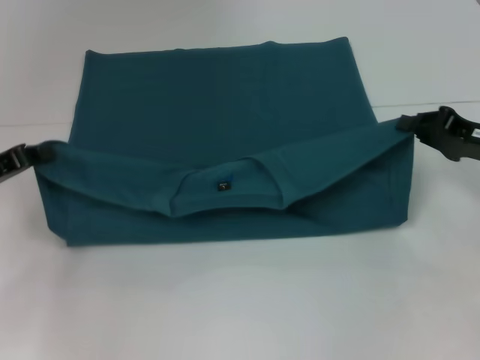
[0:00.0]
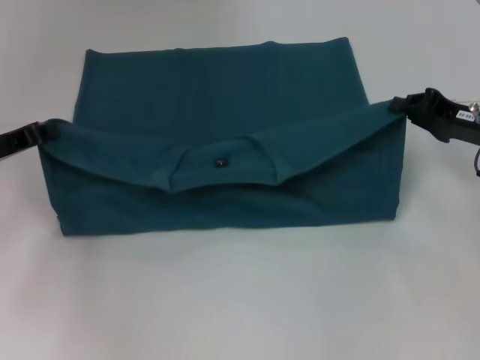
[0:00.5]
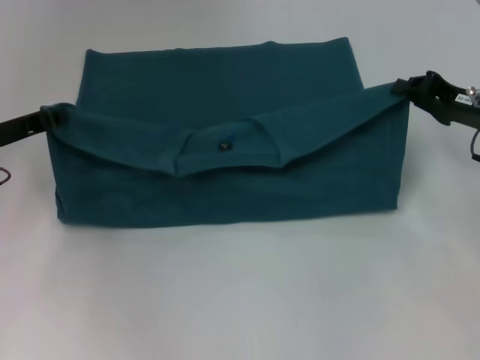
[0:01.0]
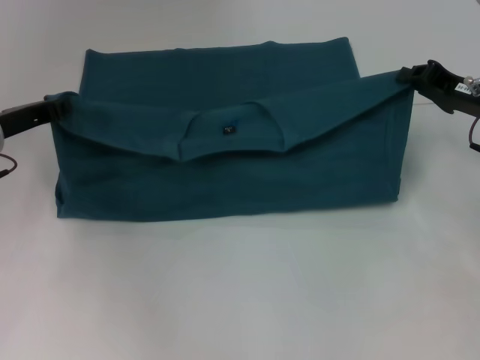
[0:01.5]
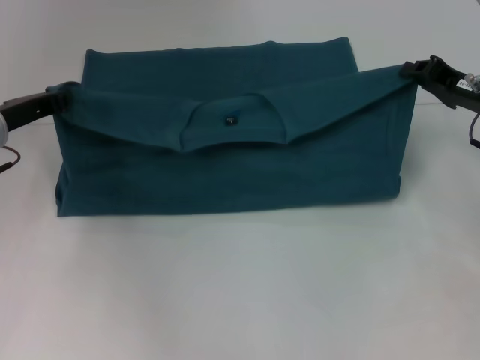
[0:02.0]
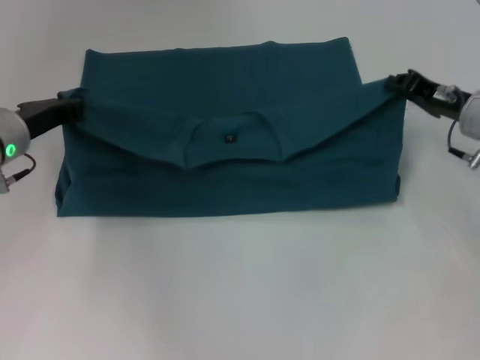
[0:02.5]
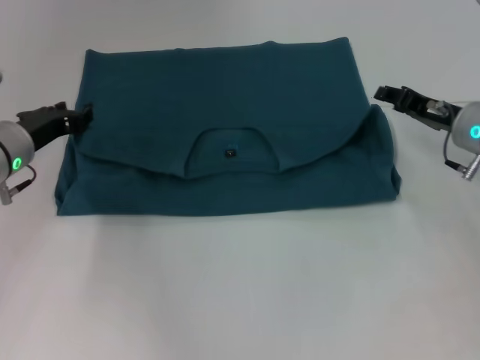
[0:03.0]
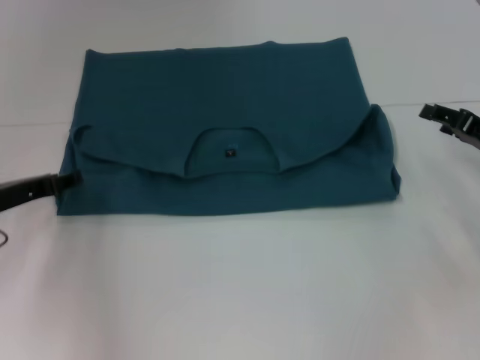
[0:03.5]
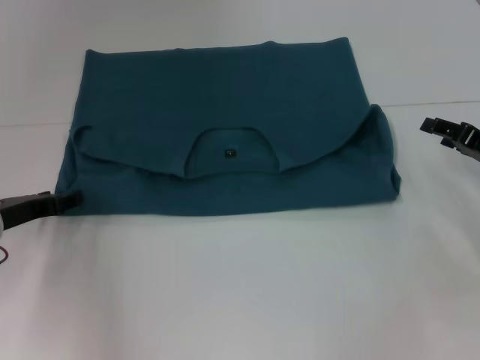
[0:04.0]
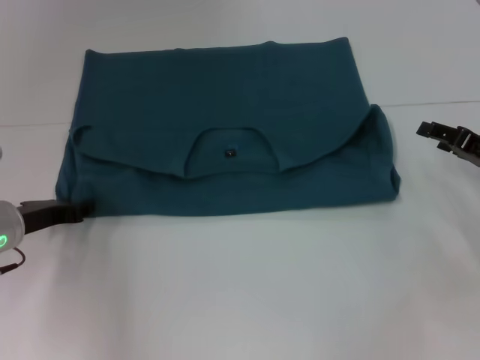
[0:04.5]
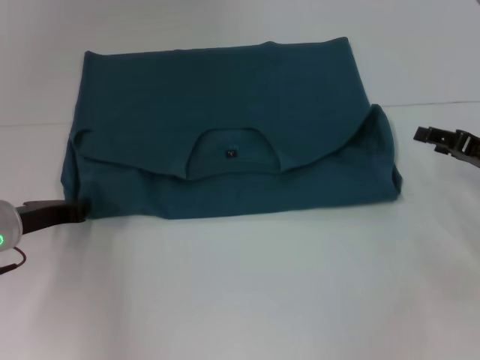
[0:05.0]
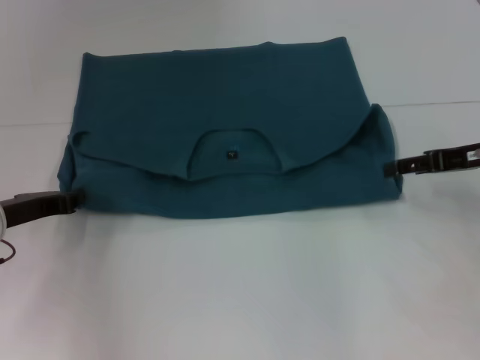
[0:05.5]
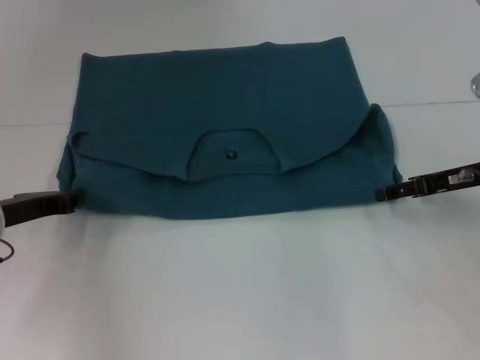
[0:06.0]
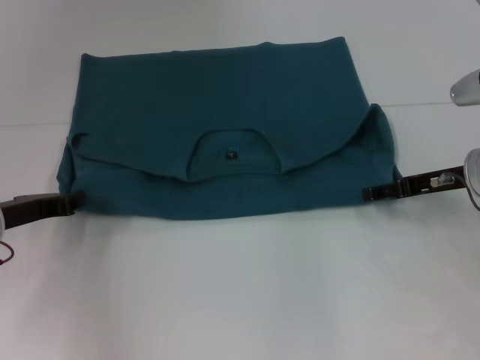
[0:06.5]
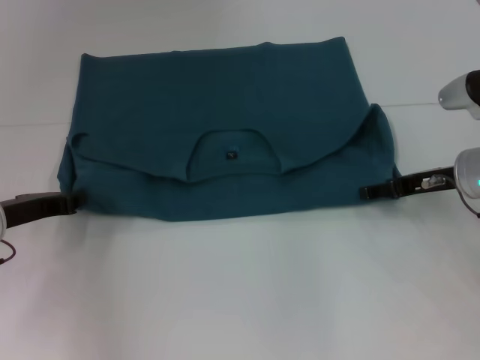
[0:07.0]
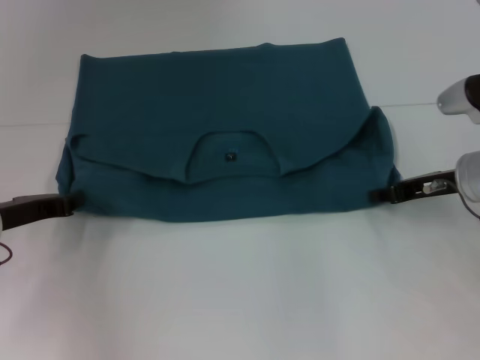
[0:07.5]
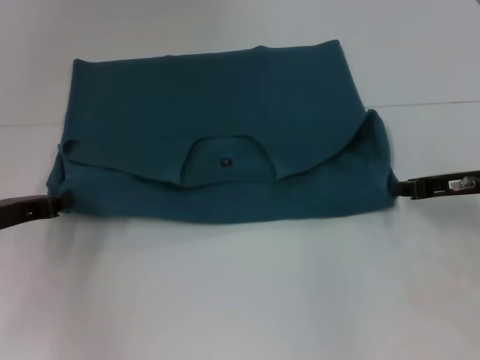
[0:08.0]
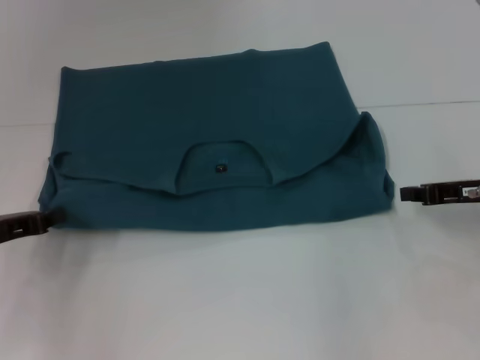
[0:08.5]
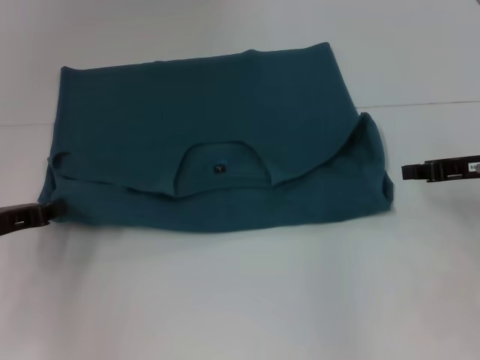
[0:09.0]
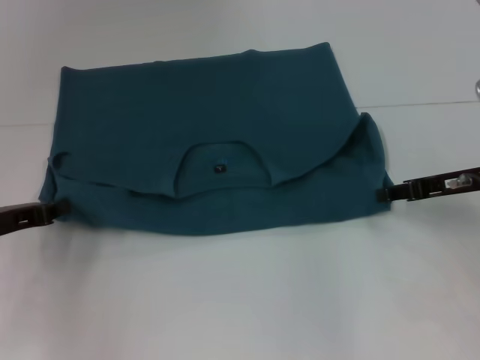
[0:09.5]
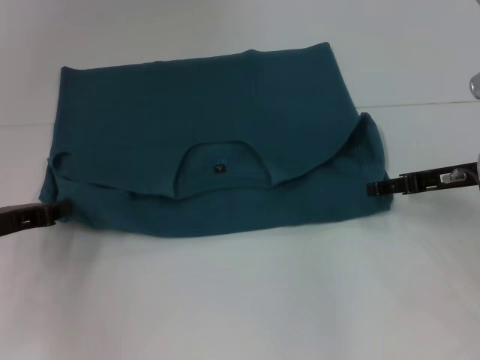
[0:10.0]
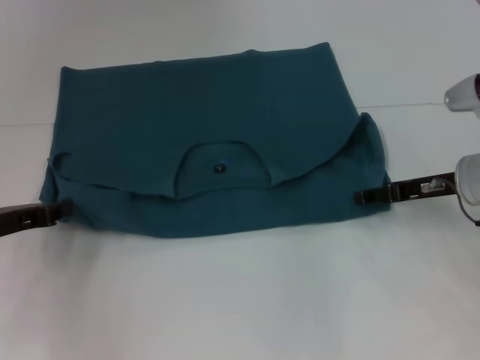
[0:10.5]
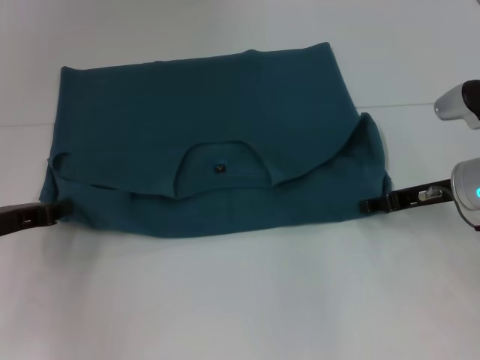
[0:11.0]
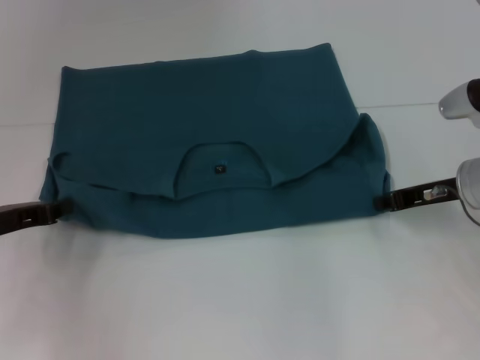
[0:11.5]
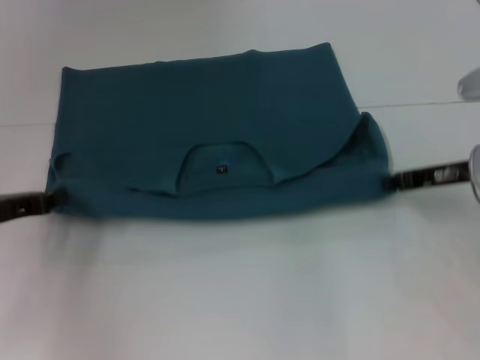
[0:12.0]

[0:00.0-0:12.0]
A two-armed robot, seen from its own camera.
Step, 0:00.0 to 0:03.5: Fold the clothes to the left.
Step, 0:00.0 to 0:03.5: Fold the clothes to the right.
0:00.0 to 0:02.0: The right gripper moves some 5 cm; the left gripper heads forward and to the right, covering roughly 10 cm.
0:02.0 to 0:04.0: The left gripper goes roughly 10 cm downward and backward, and opens its fingers, while the right gripper moves some 5 cm, and opens.
0:04.0 to 0:06.0: The right gripper ends up roughly 5 cm from where it was. Meanwhile the left gripper closes up.
0:06.0 to 0:08.0: The right gripper closes its fingers.
0:08.0 to 0:10.0: The right gripper opens its fingers.
0:10.0 to 0:12.0: The right gripper closes.

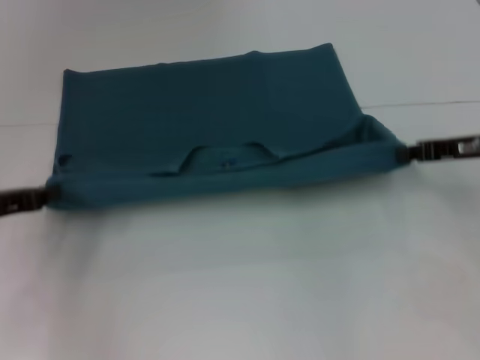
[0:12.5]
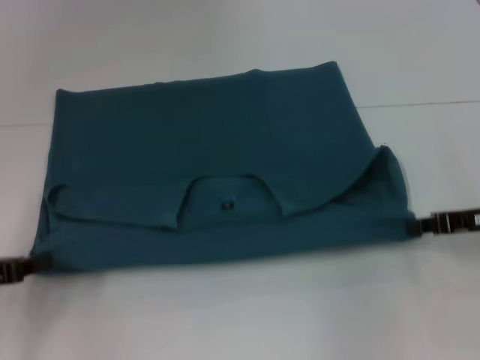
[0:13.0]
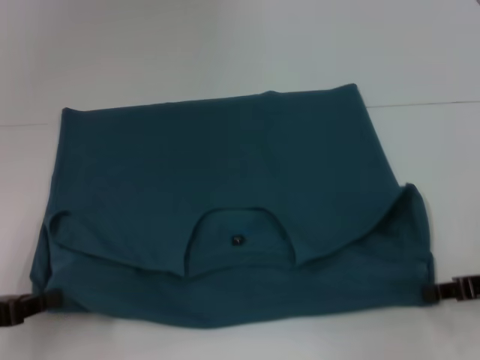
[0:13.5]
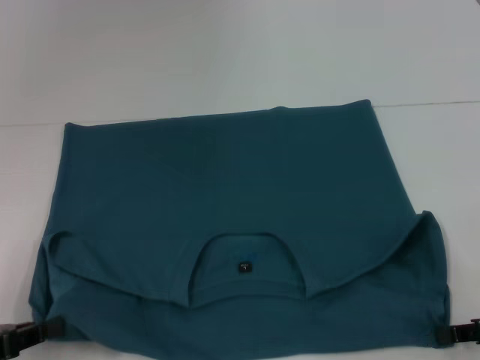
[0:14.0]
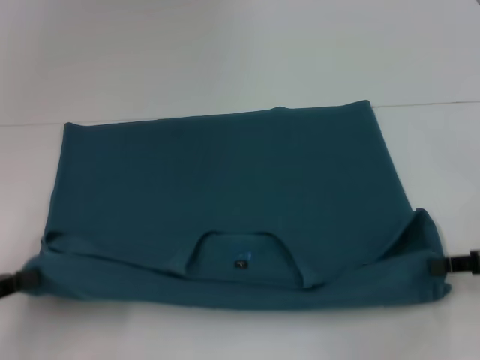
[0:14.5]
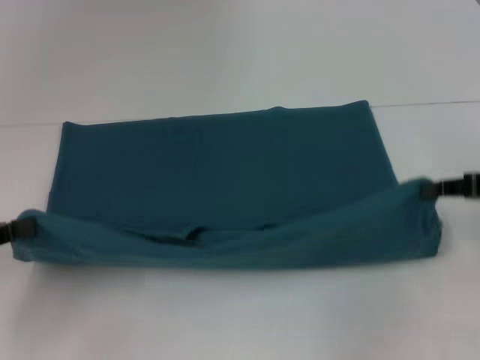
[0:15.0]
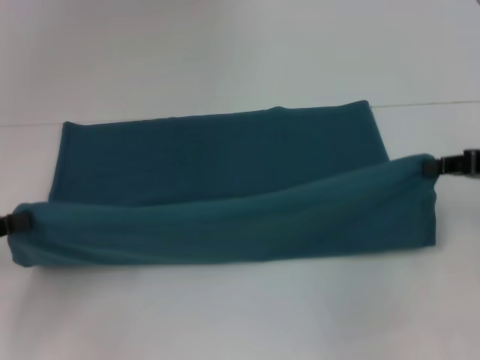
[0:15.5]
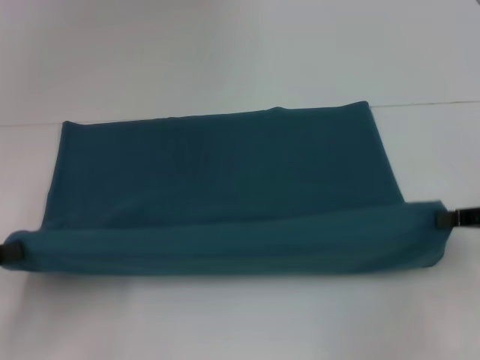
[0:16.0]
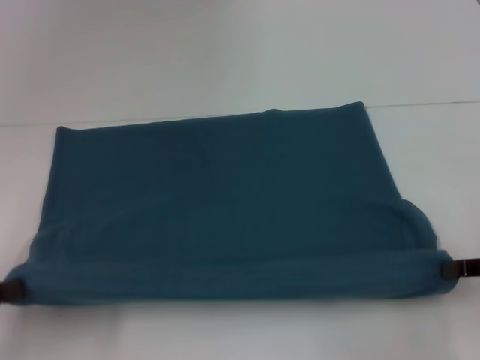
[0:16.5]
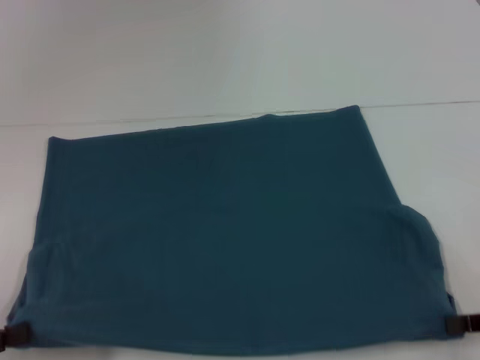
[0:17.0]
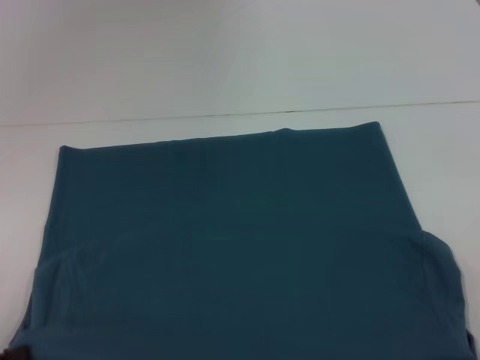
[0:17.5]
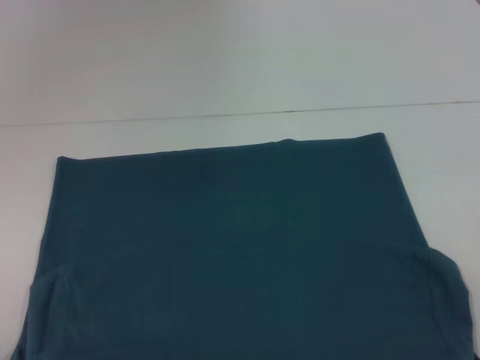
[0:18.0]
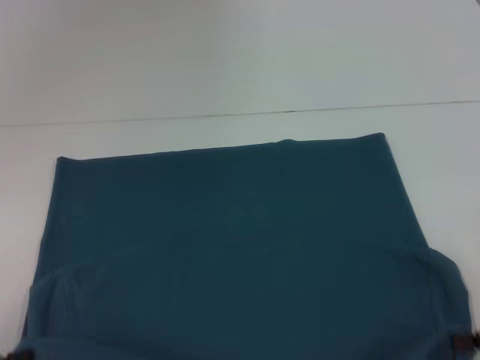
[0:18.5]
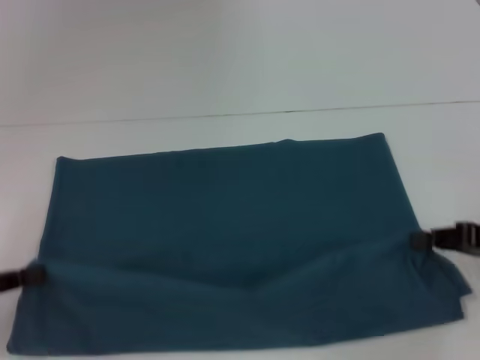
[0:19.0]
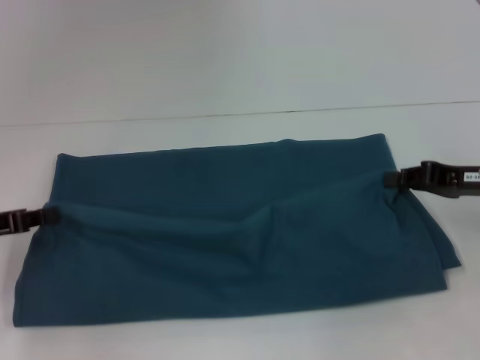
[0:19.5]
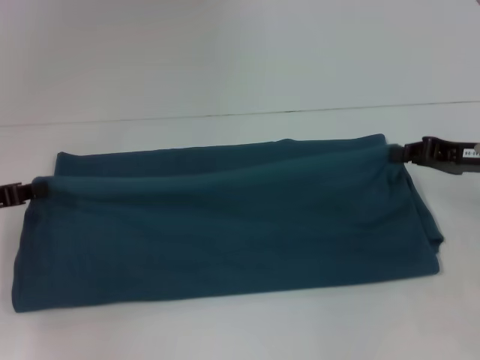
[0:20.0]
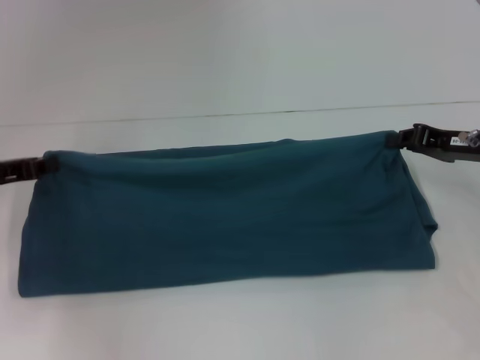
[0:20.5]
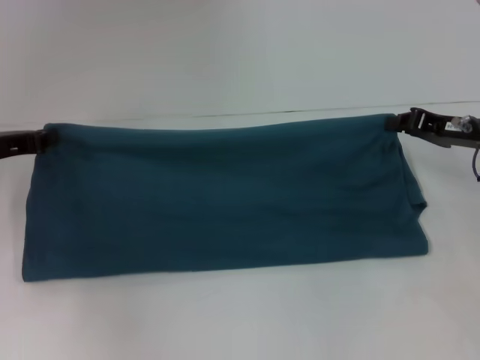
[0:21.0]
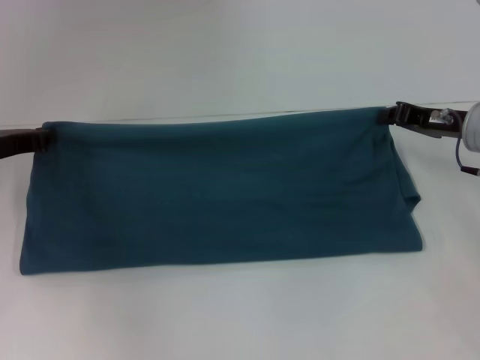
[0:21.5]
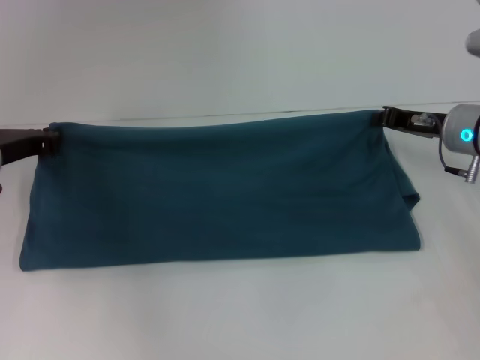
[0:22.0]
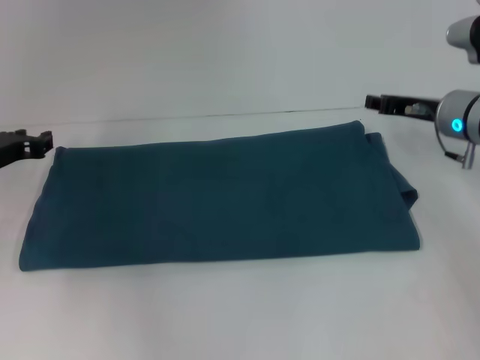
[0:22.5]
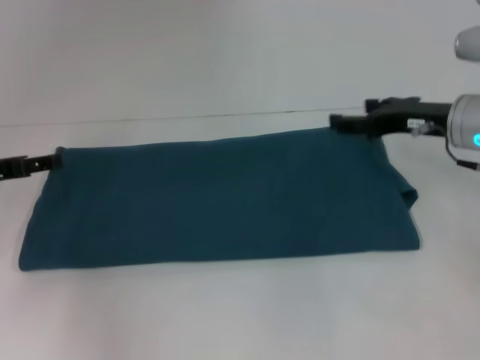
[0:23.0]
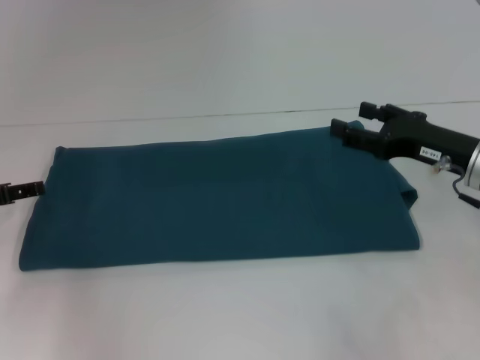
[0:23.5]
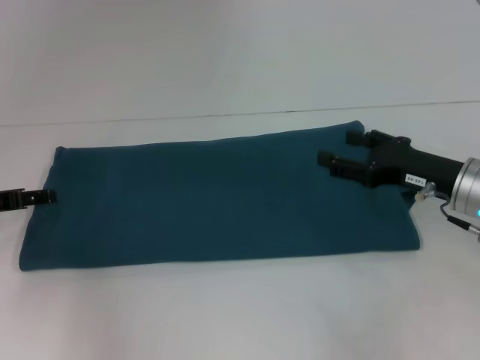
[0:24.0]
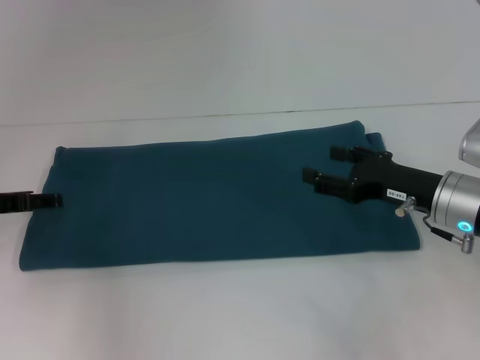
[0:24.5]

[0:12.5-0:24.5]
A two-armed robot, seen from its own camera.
Step, 0:14.5 to 0:22.5: Fold the clothes to the left.
Step, 0:14.5 to 0:22.5: Fold the clothes to the right.
0:12.5 to 0:14.5: The two grippers go some 10 cm backward.
0:16.5 to 0:18.5: The right gripper heads backward, covering approximately 5 cm.
0:18.5 to 0:20.5: The grippers both shift forward by about 20 cm.
0:20.5 to 0:22.5: The right gripper is displaced forward by roughly 5 cm.
0:22.5 to 0:24.5: The right gripper is displaced backward by about 10 cm, and opens. The left gripper opens up.

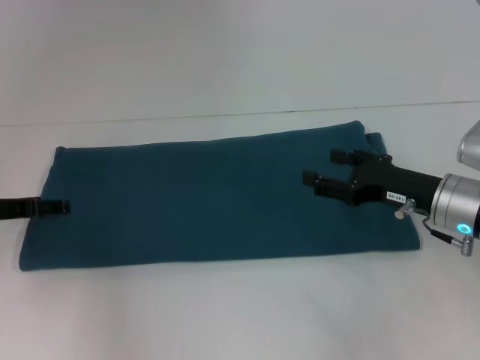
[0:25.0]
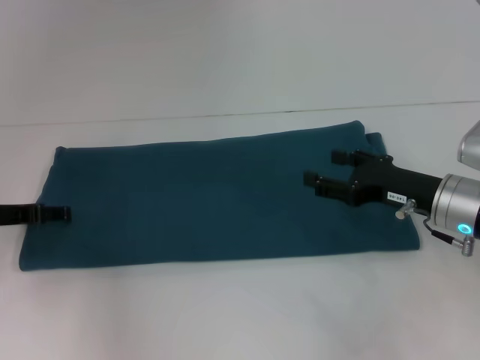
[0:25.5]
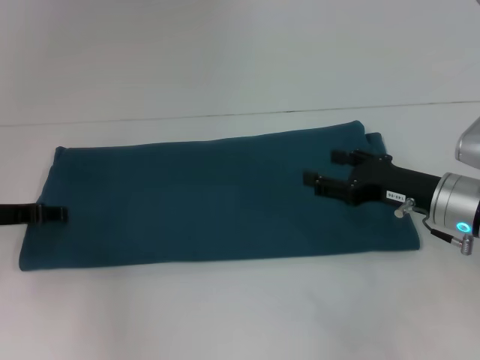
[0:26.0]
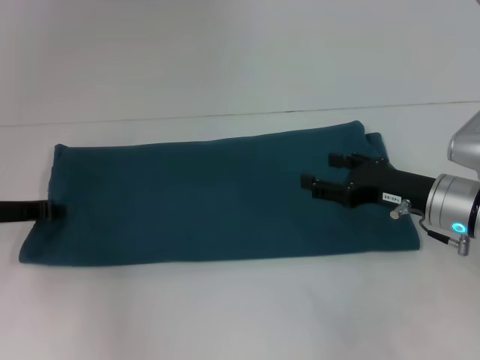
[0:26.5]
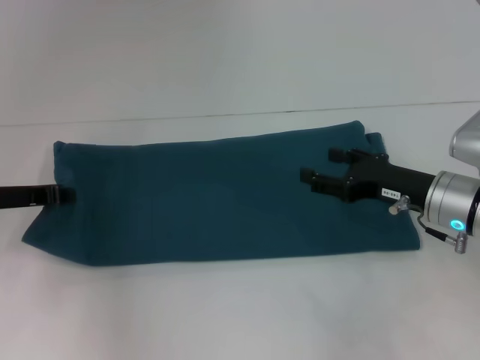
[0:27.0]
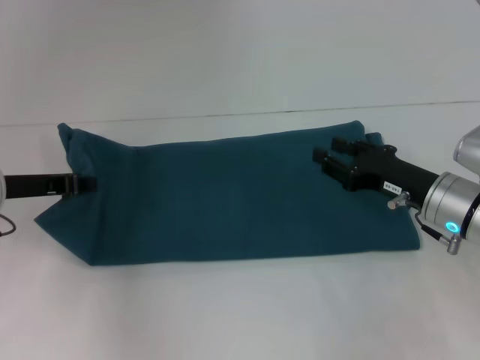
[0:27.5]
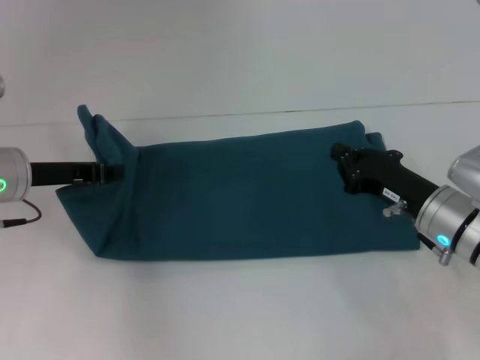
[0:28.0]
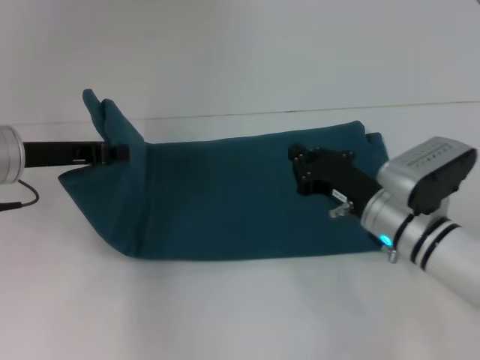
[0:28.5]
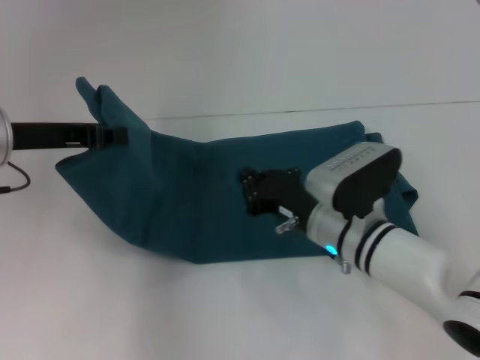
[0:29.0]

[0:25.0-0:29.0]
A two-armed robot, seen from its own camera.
0:25.0 to 0:27.0: The left gripper closes its fingers.
0:27.0 to 0:29.0: The right gripper moves to the left, roughly 10 cm, and closes. The left gripper shifts about 10 cm upward and to the right.
